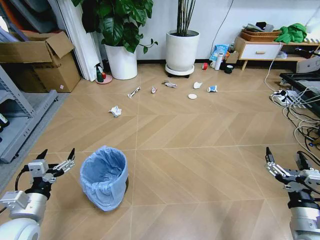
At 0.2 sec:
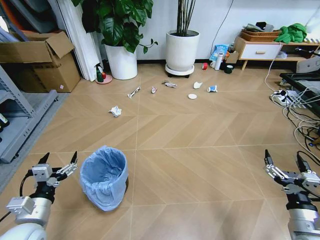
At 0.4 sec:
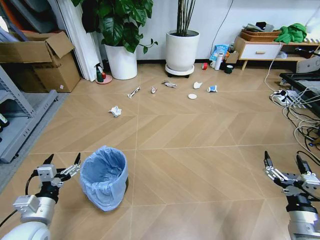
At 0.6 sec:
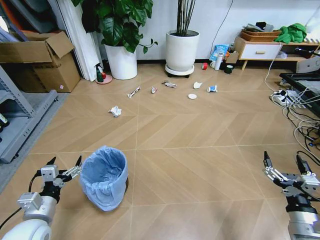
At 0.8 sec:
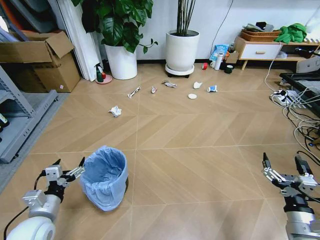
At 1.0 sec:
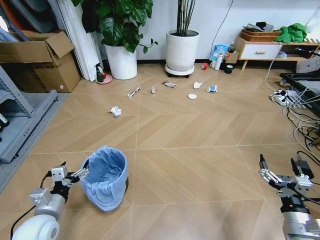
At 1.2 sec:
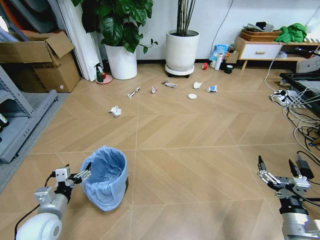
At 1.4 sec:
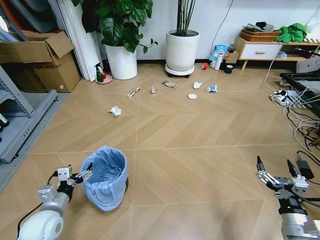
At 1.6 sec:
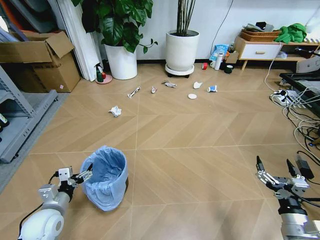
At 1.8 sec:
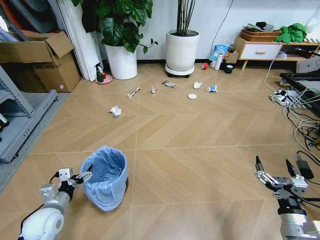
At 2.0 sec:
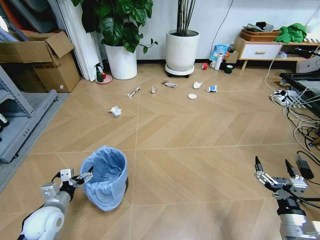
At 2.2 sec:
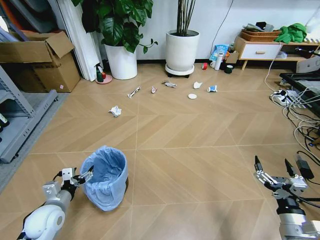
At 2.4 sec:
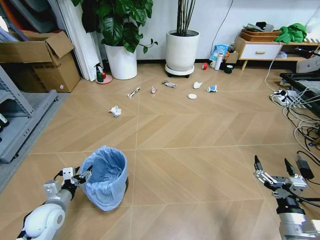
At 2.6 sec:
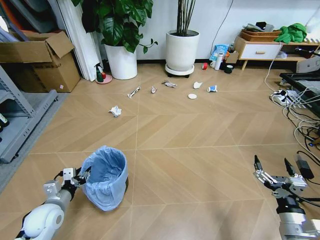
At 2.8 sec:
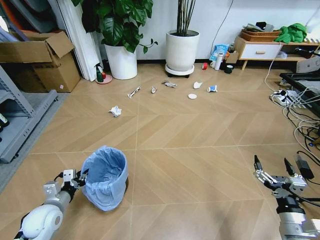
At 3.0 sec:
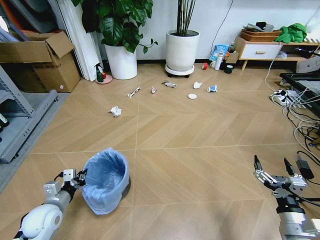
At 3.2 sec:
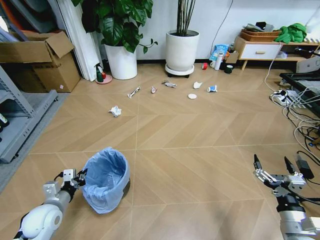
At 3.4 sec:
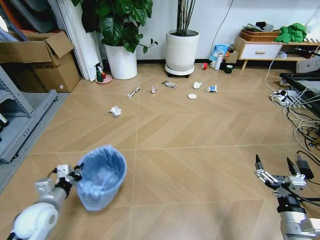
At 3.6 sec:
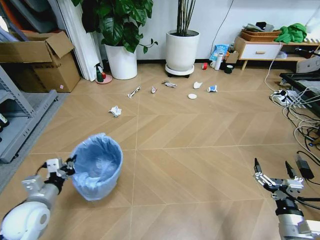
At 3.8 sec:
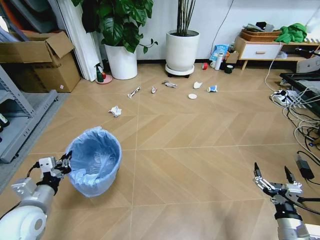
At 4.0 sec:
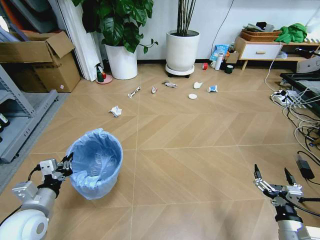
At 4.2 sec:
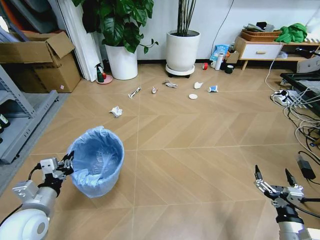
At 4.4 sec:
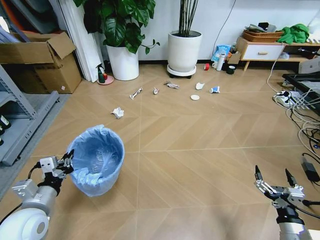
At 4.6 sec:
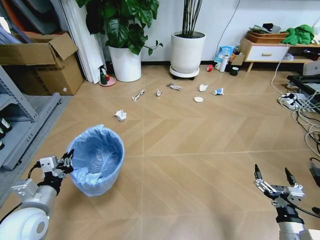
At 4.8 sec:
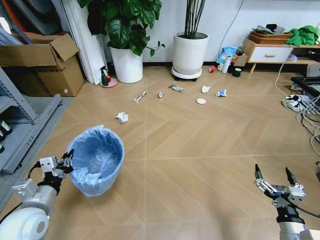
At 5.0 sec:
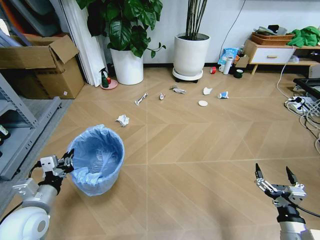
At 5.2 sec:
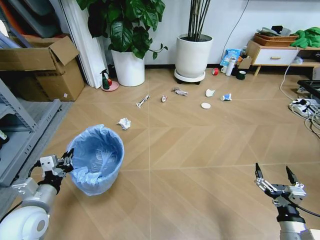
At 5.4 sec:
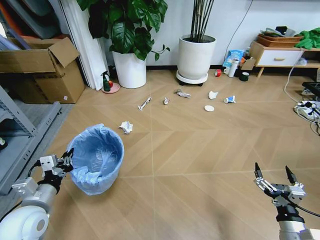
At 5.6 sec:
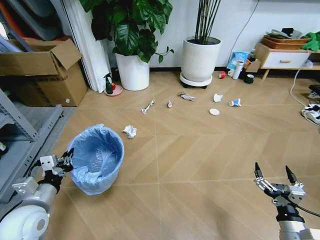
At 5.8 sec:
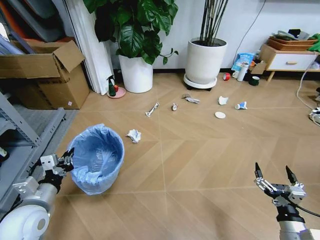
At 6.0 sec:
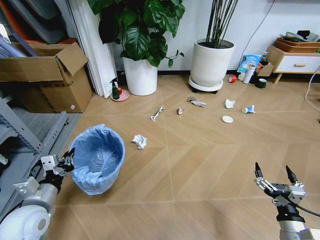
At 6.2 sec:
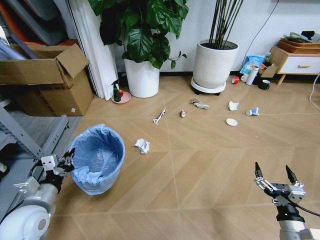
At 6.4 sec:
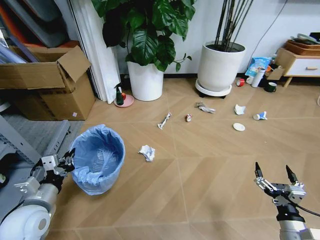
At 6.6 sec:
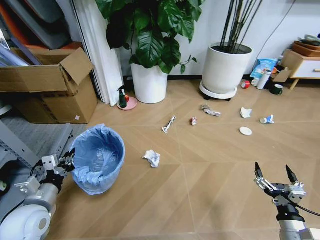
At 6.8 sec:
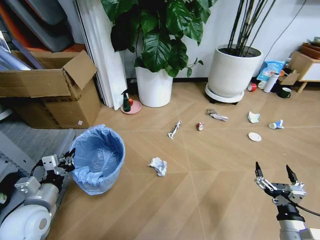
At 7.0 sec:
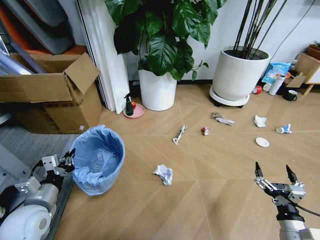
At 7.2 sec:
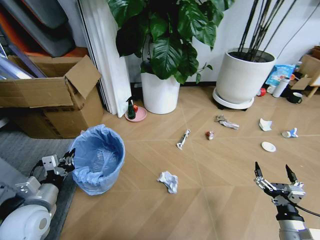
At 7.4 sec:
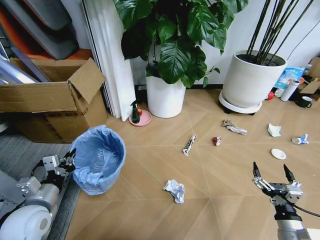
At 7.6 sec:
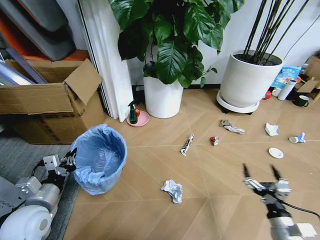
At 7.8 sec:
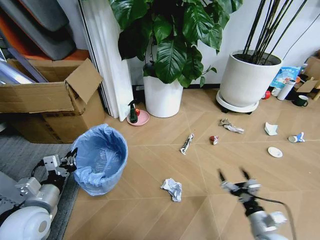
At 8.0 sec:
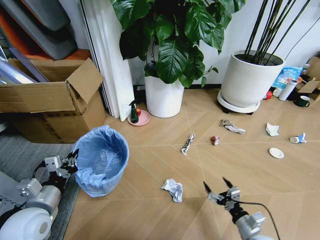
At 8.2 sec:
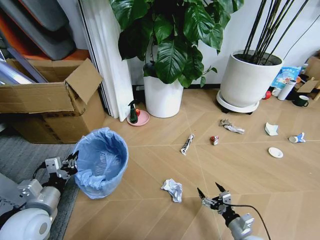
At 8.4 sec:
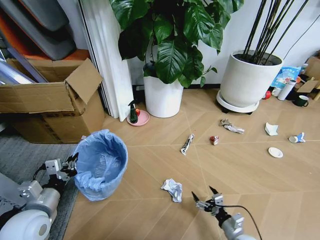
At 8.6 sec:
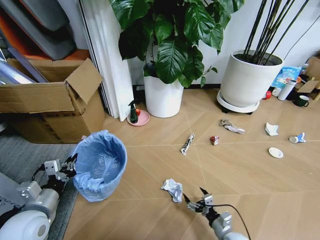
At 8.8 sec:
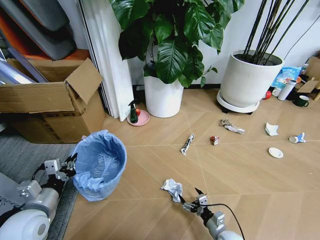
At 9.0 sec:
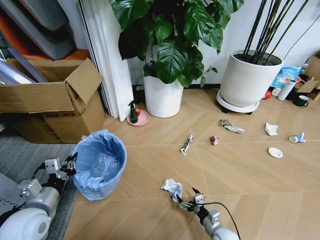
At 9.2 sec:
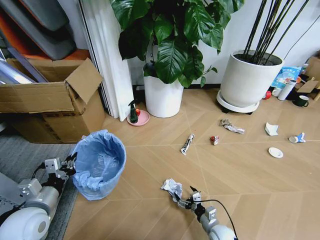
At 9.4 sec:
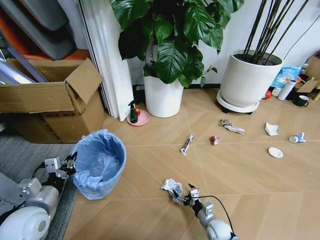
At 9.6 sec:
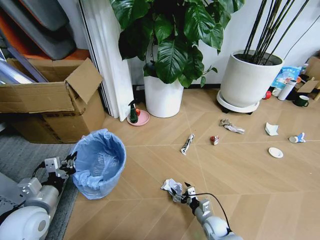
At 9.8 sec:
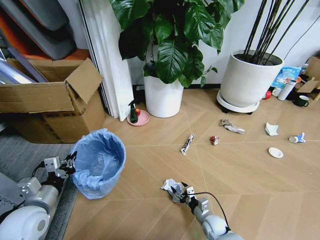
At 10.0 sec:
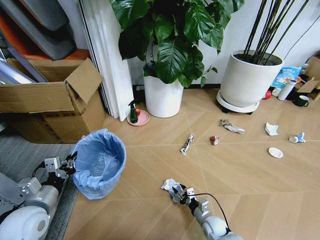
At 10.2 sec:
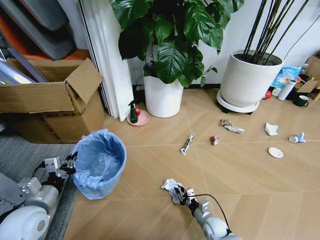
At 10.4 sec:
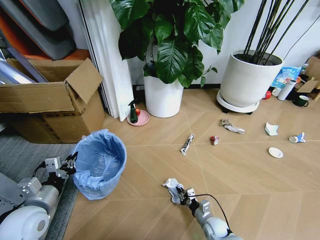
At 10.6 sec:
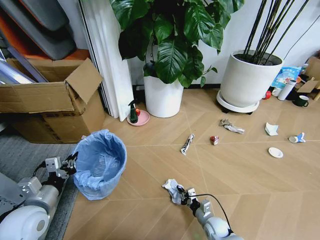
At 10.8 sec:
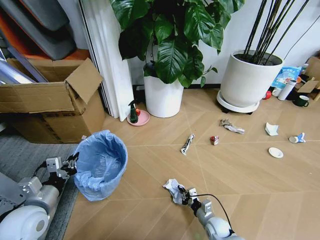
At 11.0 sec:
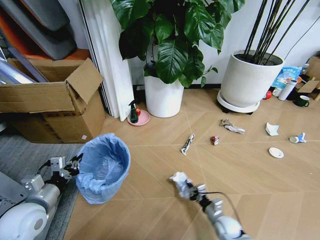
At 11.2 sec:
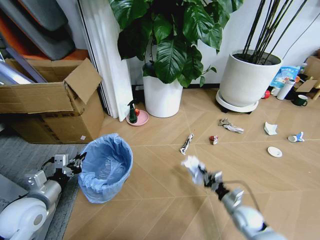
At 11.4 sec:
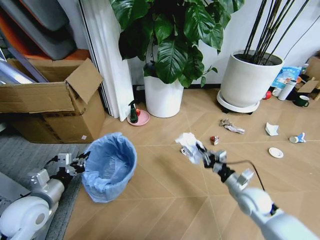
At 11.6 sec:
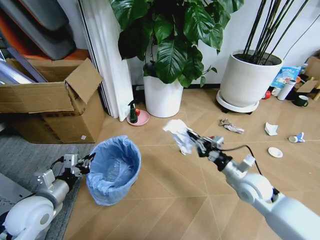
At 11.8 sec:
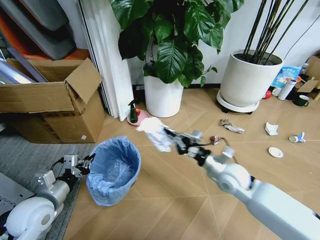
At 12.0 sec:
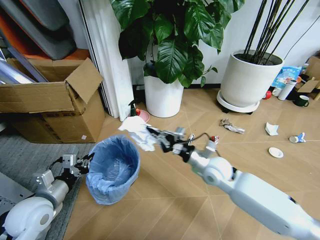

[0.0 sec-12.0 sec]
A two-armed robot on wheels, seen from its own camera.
Task of the whole recording: Pick up the trash bin and place the garbage on the floor into it.
1.6 sec to 3.0 sec: The left gripper closes its fingers.
3.0 sec to 4.4 sec: The left gripper moves upward, approximately 10 cm.
7.6 sec to 9.0 sec: The right gripper is displaced downward and to the left by roughly 20 cm.
9.0 sec to 10.4 sec: The right gripper moves approximately 5 cm, and closes up.
10.4 sec to 12.0 sec: The right gripper travels upward by some 30 cm.

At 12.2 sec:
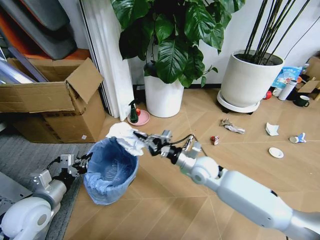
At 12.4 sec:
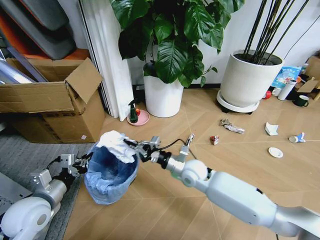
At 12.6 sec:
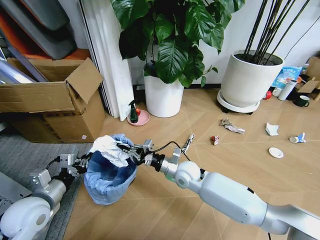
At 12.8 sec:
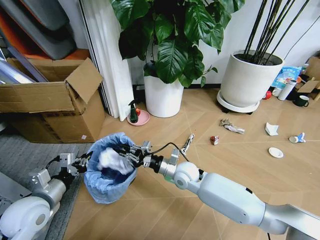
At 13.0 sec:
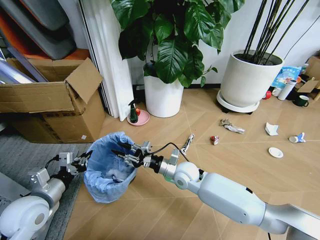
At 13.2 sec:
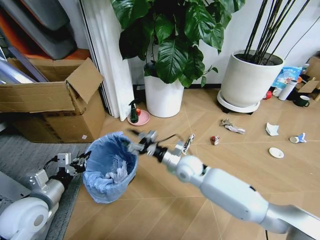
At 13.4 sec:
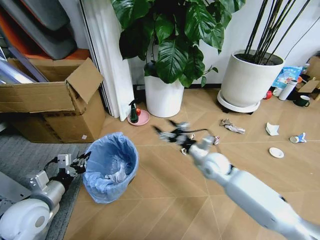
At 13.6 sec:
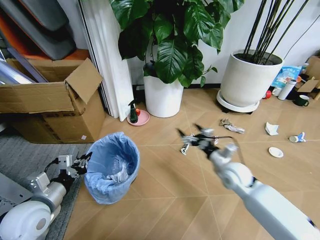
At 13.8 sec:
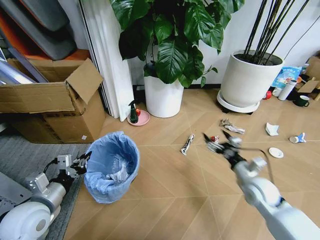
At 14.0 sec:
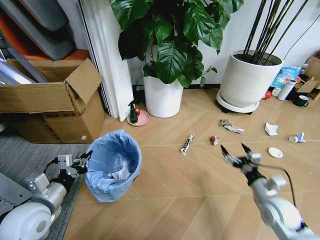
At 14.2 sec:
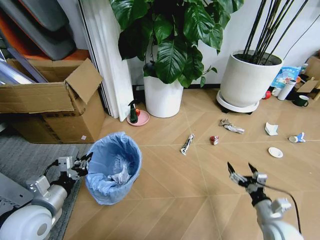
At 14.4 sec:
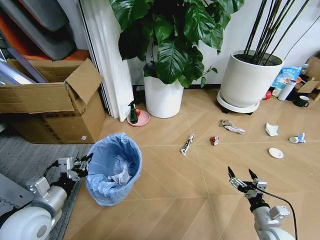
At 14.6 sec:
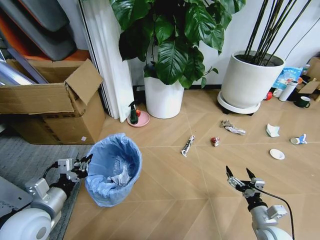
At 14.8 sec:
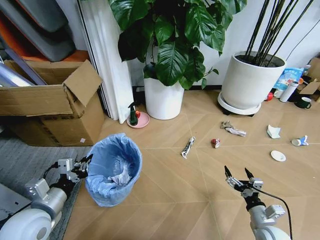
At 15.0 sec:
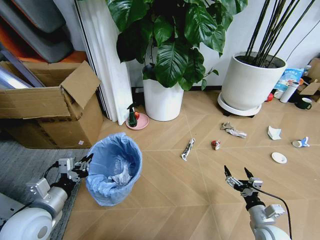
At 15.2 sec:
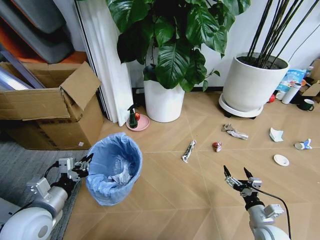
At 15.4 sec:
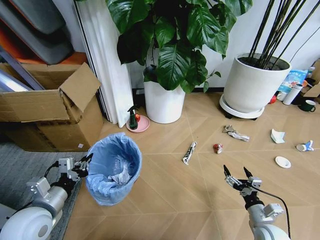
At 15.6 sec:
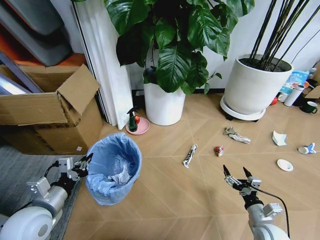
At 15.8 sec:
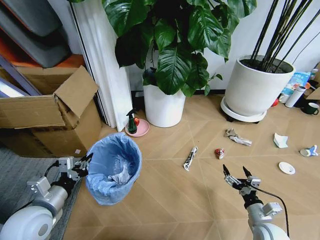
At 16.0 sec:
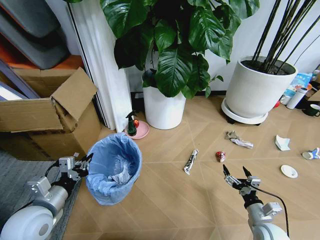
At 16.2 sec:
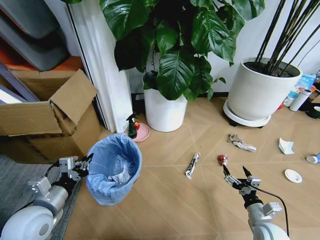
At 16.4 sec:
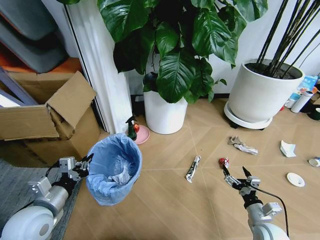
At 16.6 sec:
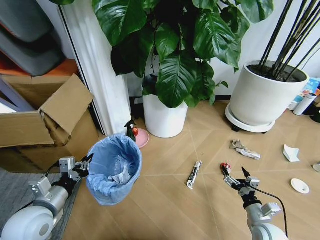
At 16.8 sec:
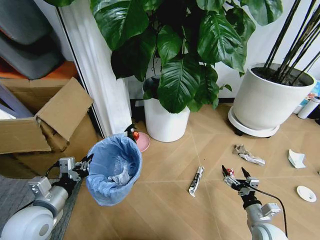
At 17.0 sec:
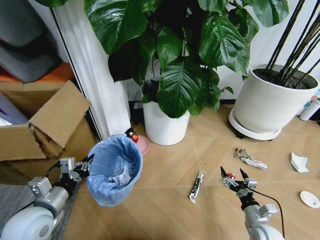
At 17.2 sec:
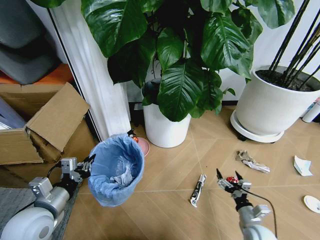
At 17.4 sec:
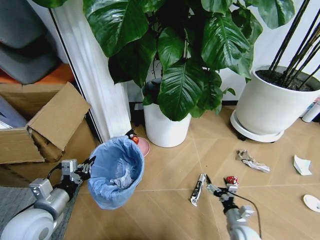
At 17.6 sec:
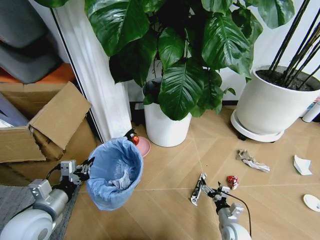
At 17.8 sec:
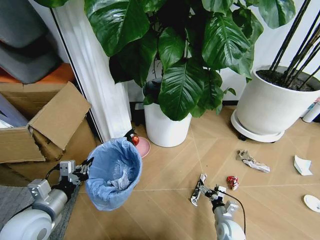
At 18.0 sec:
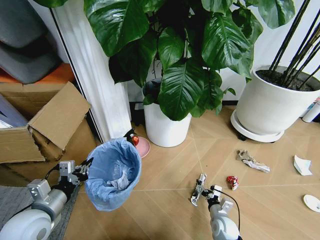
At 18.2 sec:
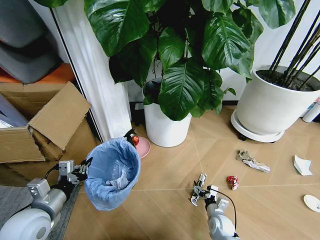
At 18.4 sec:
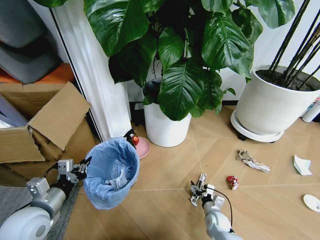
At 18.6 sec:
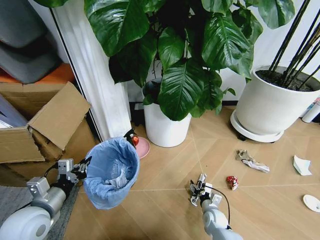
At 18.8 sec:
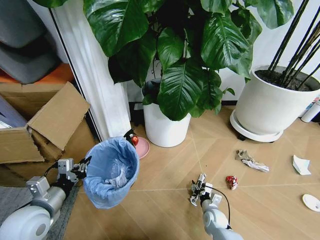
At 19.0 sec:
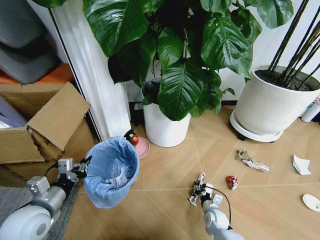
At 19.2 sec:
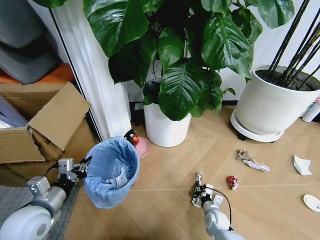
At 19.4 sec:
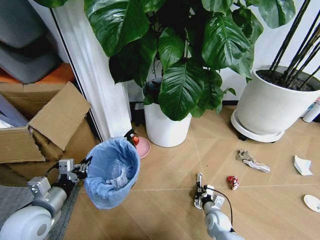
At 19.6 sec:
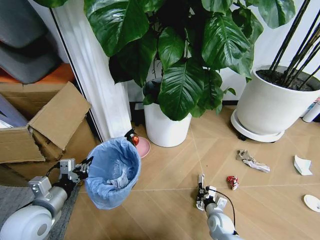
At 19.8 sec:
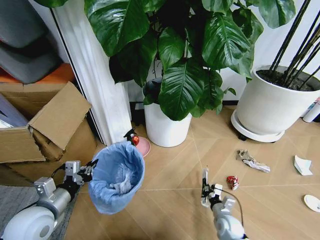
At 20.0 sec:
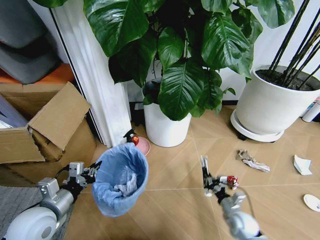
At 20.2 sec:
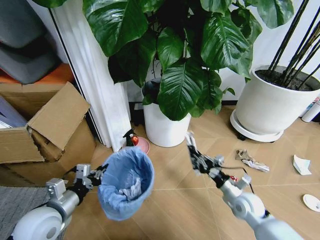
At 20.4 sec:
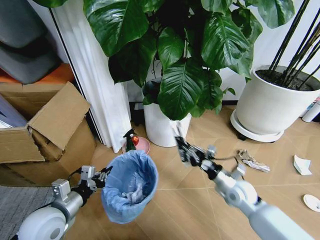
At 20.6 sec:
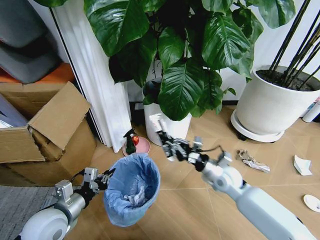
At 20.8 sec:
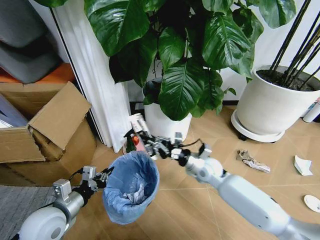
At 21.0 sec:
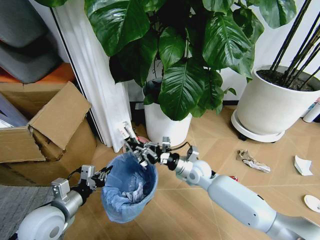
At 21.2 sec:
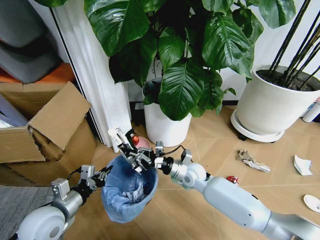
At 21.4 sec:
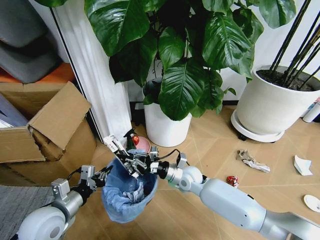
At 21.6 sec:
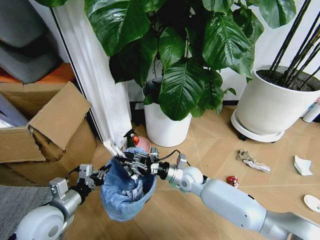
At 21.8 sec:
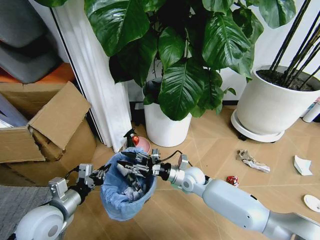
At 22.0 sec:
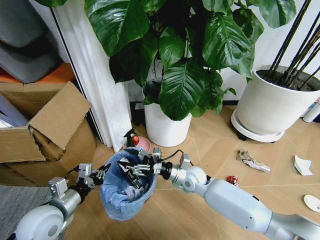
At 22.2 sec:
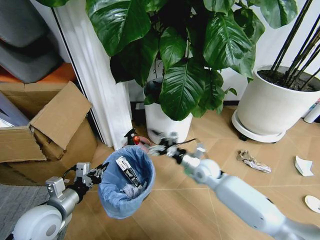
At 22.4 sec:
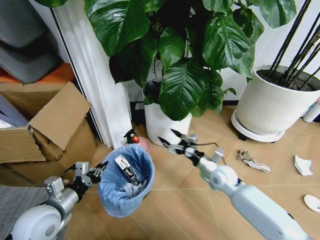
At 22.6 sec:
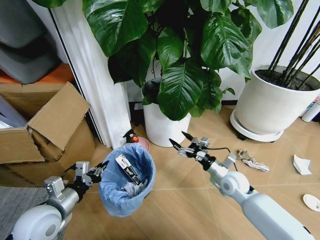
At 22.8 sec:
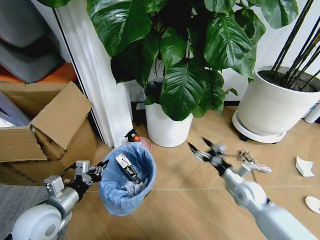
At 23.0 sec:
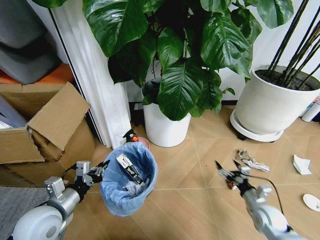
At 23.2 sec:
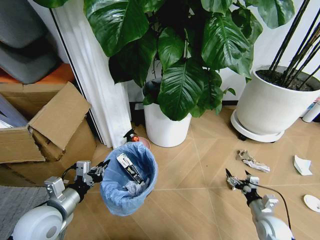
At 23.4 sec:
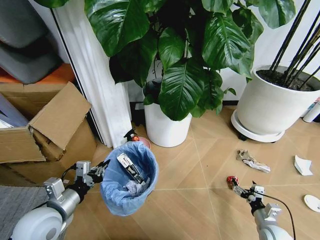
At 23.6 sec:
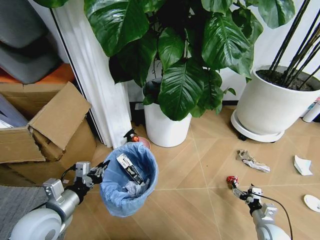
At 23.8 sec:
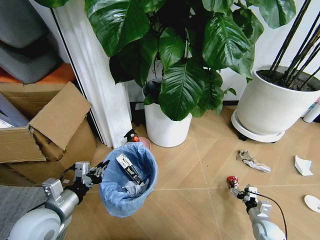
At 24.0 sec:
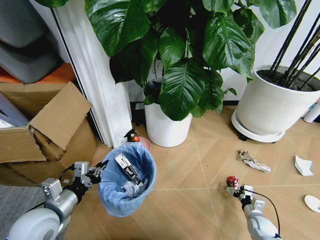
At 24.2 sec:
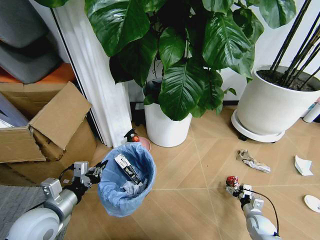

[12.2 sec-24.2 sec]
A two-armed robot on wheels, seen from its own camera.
Task of the whole recording: Pick up the trash bin and place the garbage on the floor into it.
12.2 sec to 13.8 sec: The right gripper shifts roughly 20 cm to the right, and opens.
13.8 sec to 15.2 sec: The right gripper heads backward and downward, covering some 15 cm.
16.6 sec to 18.2 sec: The right gripper is displaced downward, to the left and forward by approximately 20 cm.
18.2 sec to 19.8 sec: The right gripper closes its fingers.
19.8 sec to 21.2 sec: The right gripper travels upward, to the left and forward by about 30 cm.
21.2 sec to 22.6 sec: The right gripper is displaced to the right by about 15 cm, and opens.
22.6 sec to 24.2 sec: The right gripper is displaced downward, to the right and backward by about 25 cm.
